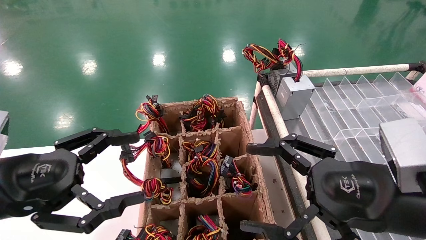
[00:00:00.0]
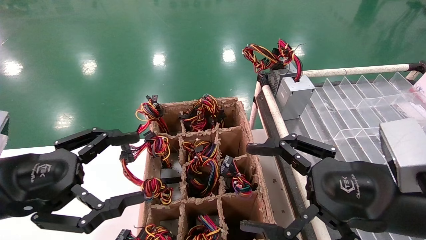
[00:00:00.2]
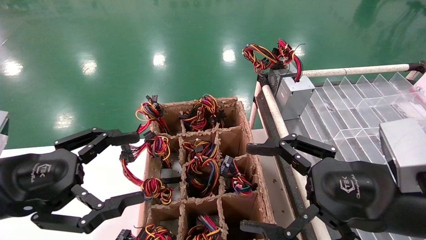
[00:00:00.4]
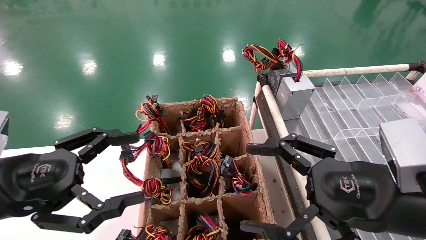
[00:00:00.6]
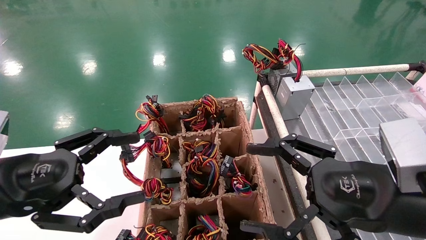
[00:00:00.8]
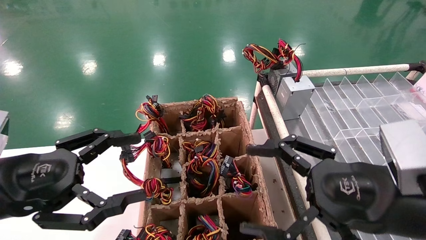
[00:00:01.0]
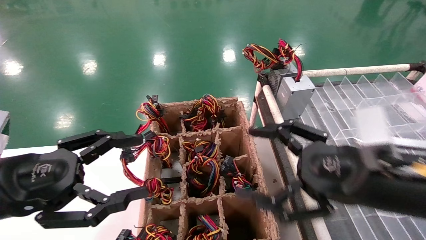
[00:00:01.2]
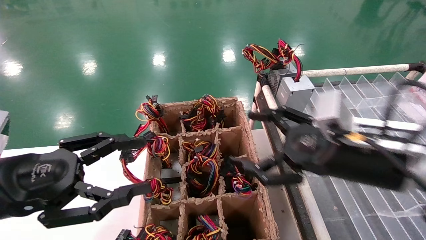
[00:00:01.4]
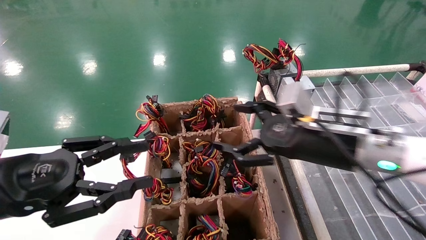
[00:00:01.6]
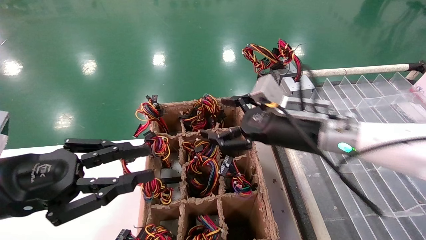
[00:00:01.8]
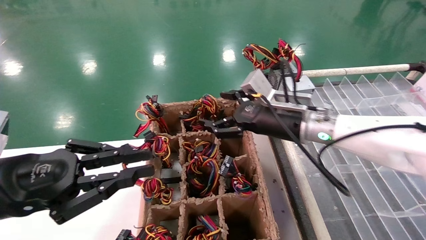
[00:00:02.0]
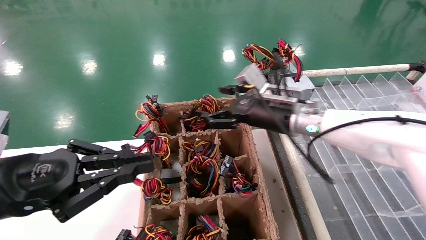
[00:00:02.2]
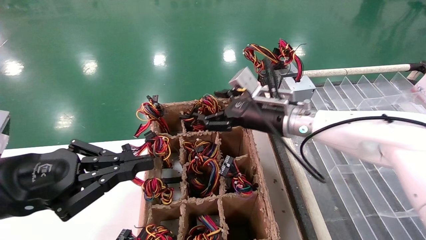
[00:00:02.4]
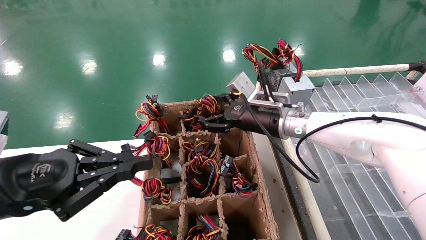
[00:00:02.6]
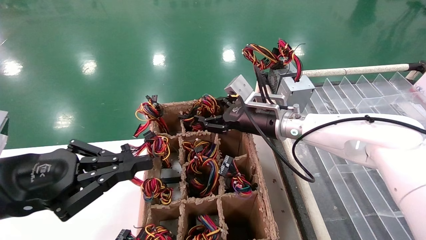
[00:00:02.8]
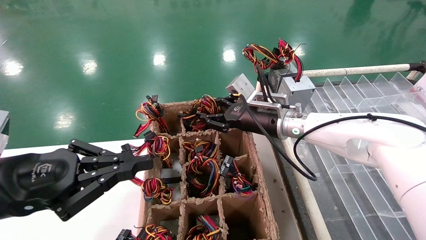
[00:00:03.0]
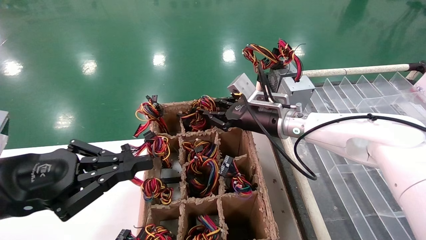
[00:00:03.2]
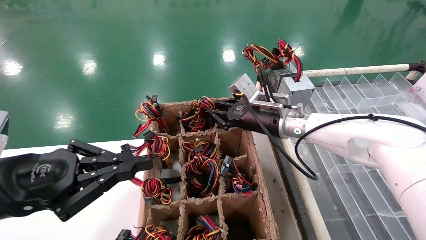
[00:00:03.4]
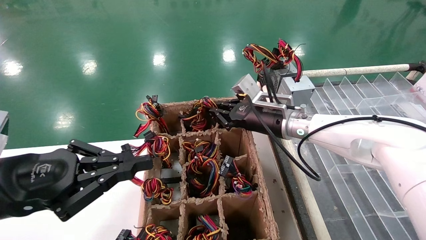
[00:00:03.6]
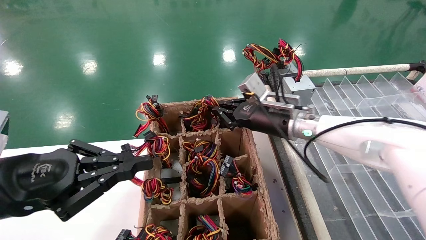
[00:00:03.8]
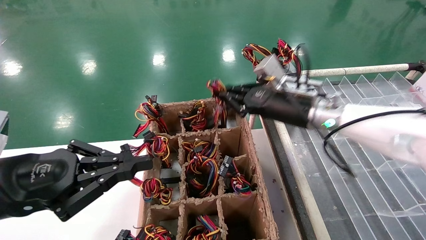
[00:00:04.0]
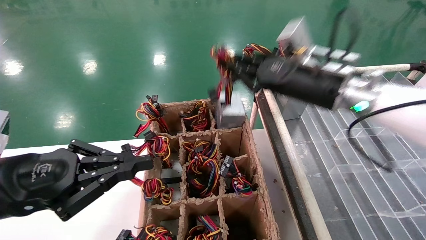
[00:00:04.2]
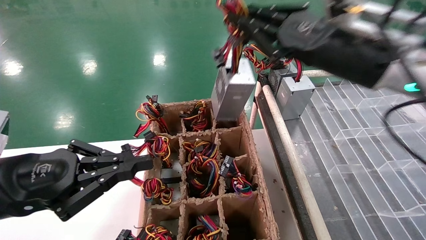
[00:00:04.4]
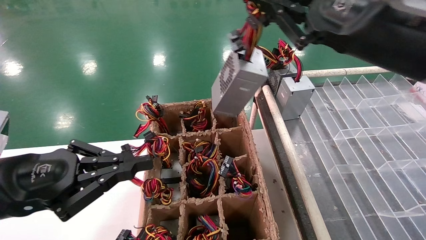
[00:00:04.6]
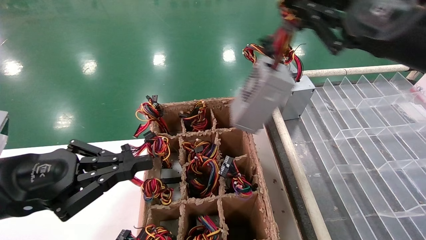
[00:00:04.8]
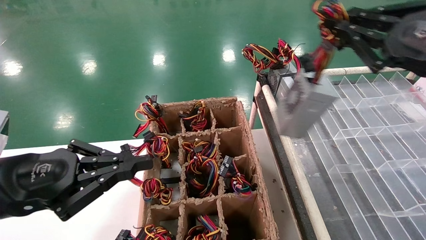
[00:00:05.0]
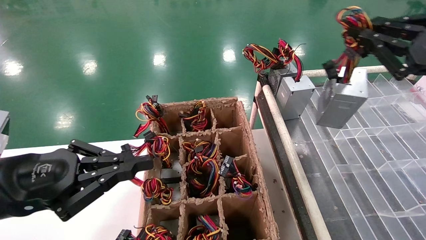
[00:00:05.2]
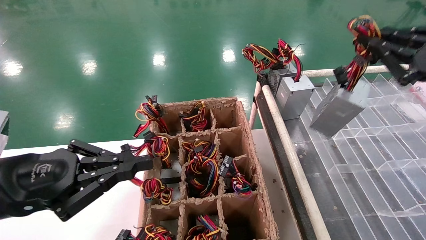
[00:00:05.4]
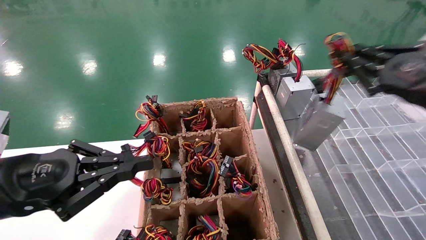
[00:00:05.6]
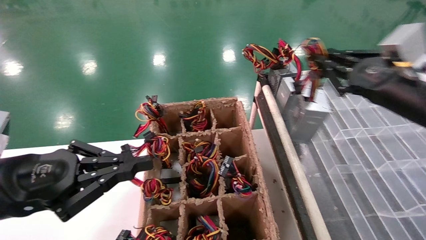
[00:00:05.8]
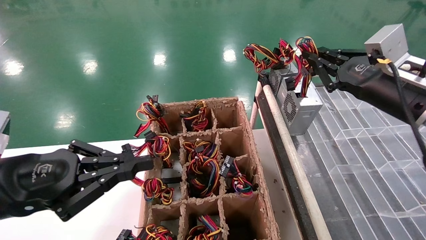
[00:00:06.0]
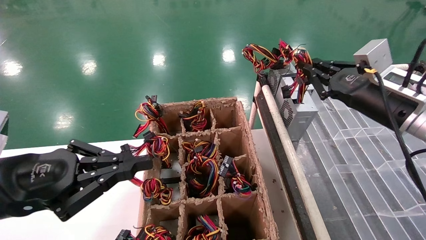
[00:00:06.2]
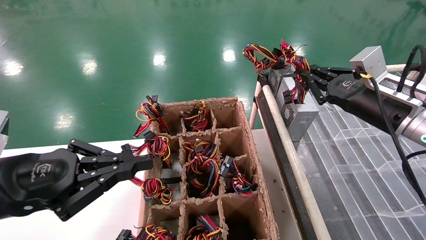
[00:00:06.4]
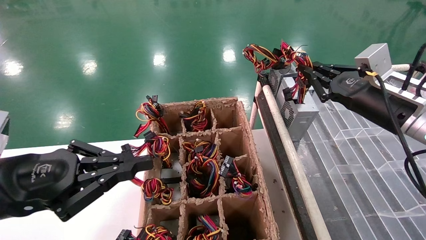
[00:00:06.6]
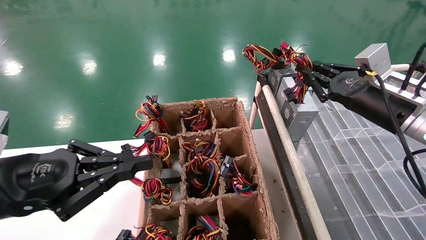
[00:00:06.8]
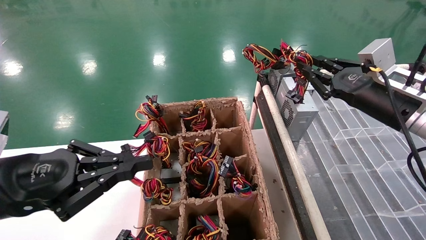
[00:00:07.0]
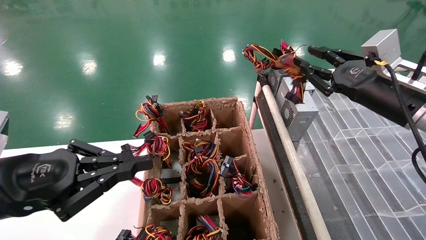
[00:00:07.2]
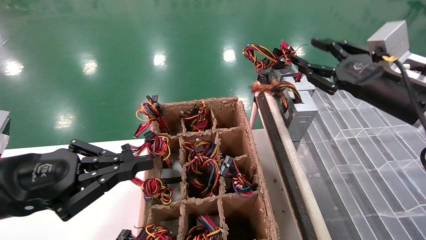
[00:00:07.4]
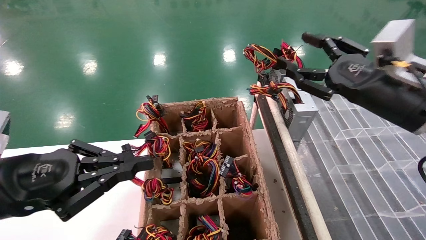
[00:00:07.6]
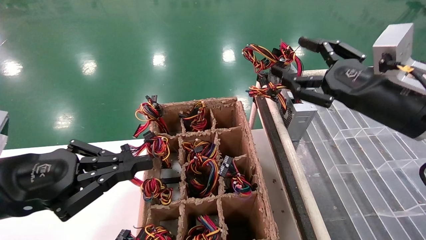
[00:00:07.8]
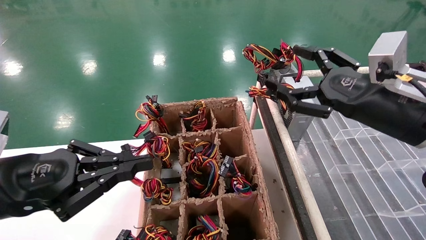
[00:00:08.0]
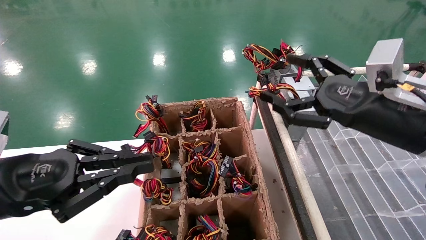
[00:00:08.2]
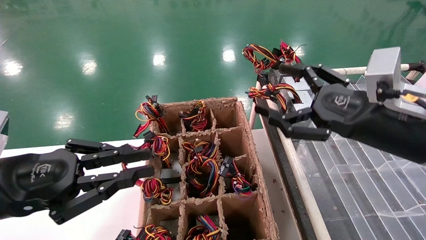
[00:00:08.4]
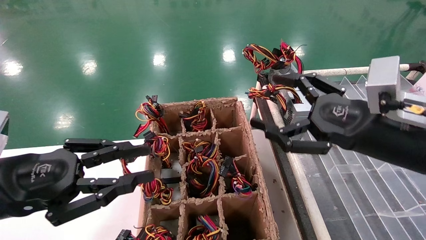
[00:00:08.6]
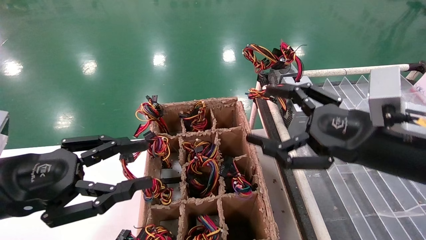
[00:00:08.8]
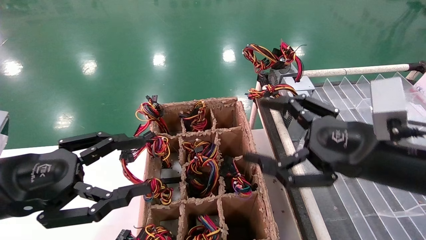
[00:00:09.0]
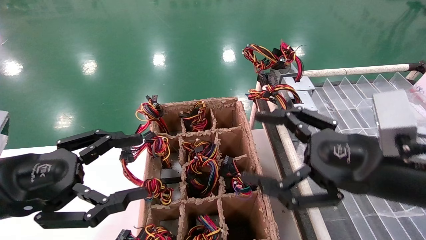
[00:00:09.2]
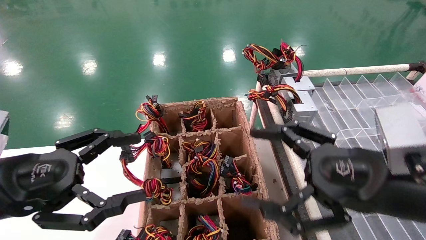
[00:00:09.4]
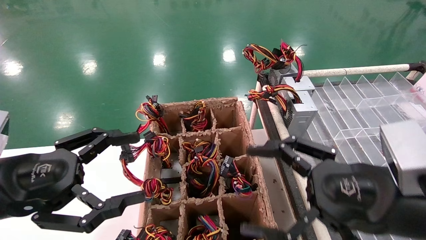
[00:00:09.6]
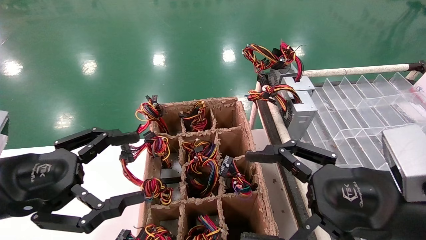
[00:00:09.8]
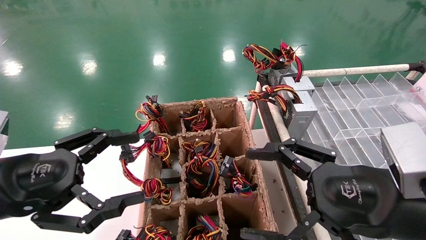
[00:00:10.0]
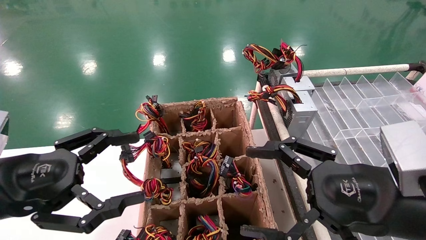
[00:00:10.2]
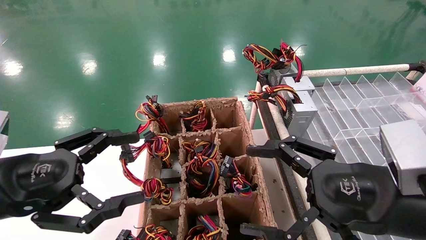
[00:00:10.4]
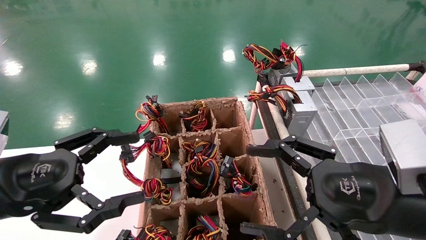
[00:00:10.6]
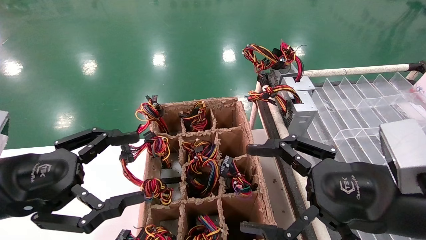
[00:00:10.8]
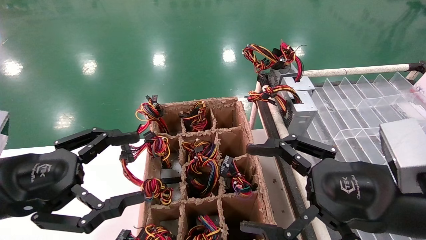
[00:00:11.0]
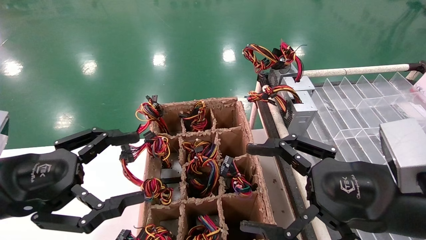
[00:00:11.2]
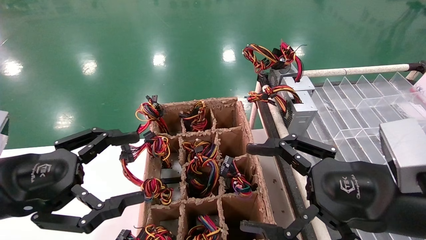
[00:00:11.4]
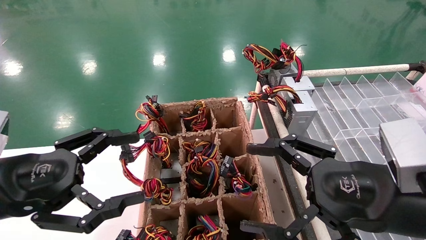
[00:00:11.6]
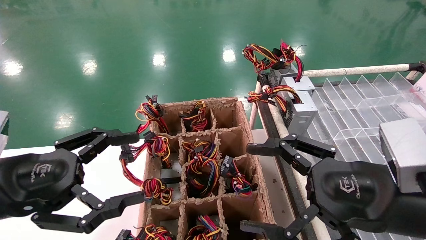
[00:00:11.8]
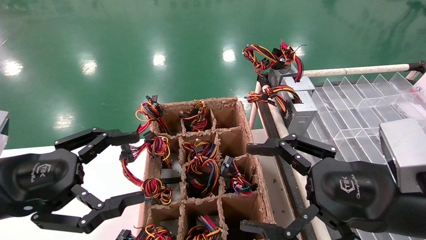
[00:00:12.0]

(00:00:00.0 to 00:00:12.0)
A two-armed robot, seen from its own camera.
Step, 00:00:01.4 - 00:00:03.6: Grab the main unit power supply from the containment box.
Step, 00:00:03.8 - 00:00:07.4: Place the main unit power supply in the designated area.
00:00:00.0 - 00:00:01.6: The left gripper closes its fingers, while the right gripper goes about 10 cm forward.
00:00:01.6 - 00:00:03.0: The left gripper closes; the right gripper shifts roughly 15 cm forward and to the left, and closes.
00:00:03.0 - 00:00:04.4: The right gripper moves backward, upward and to the right, some 20 cm, and closes.
00:00:04.4 - 00:00:06.0: The right gripper is displaced to the right and downward by approximately 10 cm.
00:00:06.0 - 00:00:07.6: The right gripper opens its fingers.
00:00:07.6 - 00:00:09.0: The right gripper moves backward, approximately 10 cm, and opens, while the left gripper opens up.
00:00:09.0 - 00:00:10.4: The left gripper opens its fingers.
00:00:10.4 - 00:00:12.0: Neither gripper changes place.

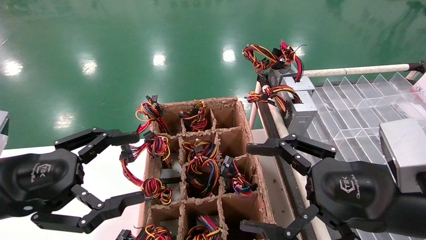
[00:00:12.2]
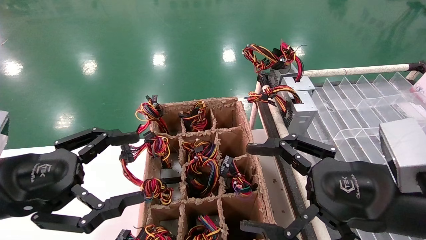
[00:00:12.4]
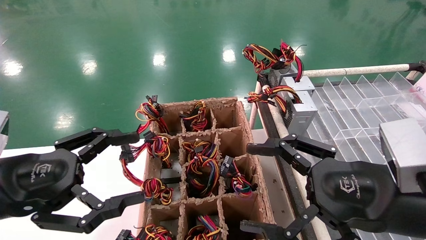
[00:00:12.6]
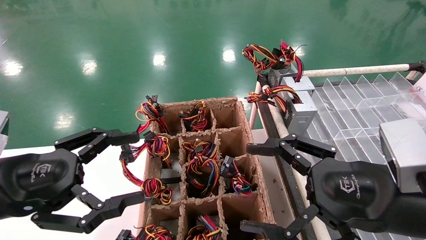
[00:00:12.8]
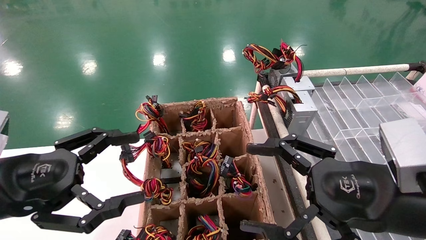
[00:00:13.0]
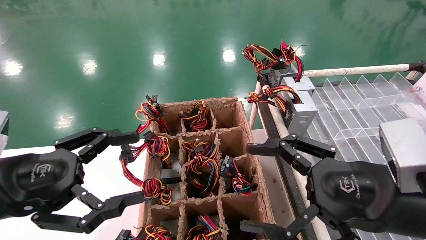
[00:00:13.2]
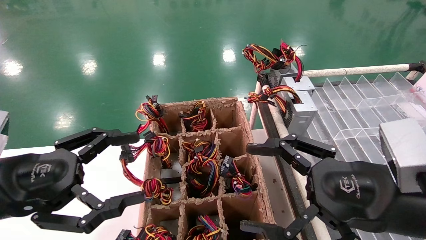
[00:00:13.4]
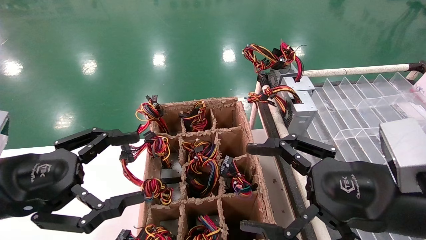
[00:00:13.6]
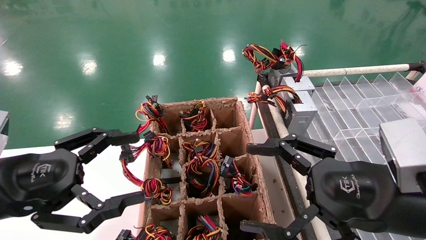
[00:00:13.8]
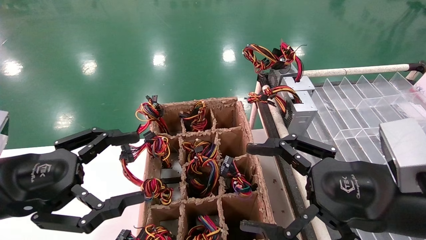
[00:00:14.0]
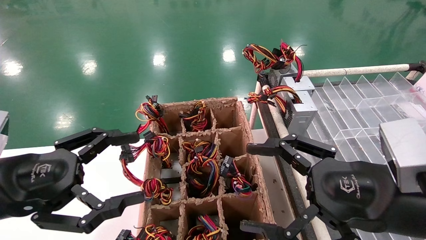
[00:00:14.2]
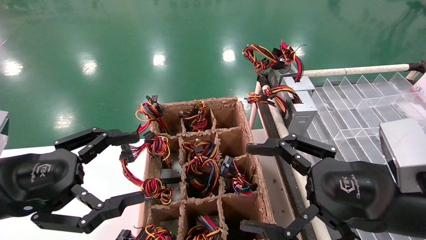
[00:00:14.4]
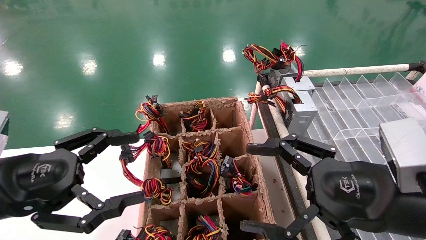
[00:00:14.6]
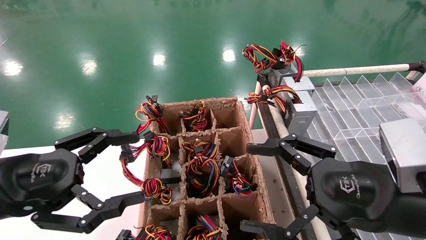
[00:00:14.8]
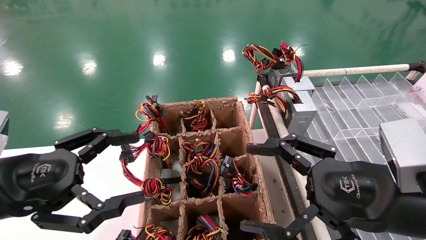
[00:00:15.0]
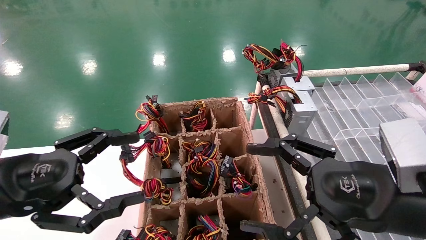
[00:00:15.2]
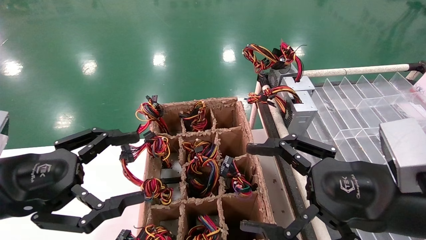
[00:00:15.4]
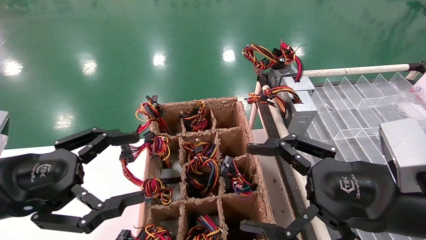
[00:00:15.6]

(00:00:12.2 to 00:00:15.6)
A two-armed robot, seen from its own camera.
00:00:12.2 - 00:00:15.6: The two grippers keep their place.
